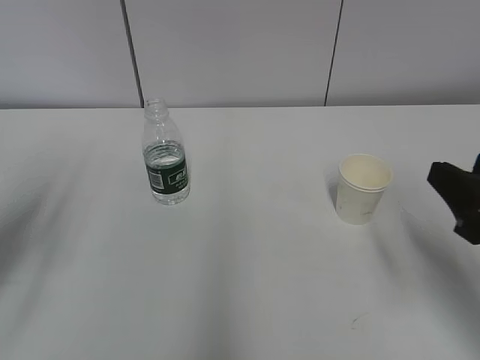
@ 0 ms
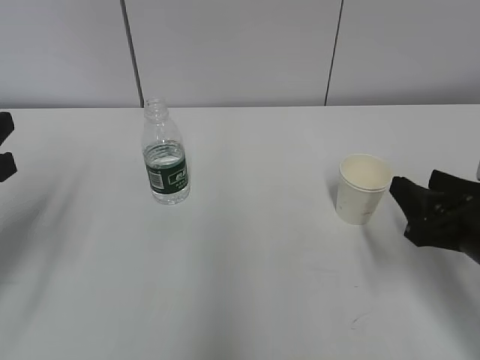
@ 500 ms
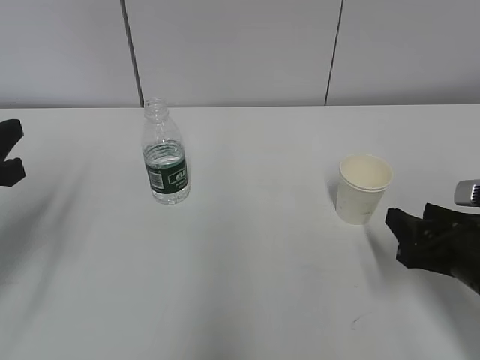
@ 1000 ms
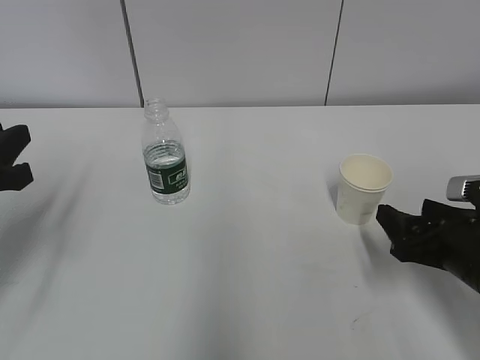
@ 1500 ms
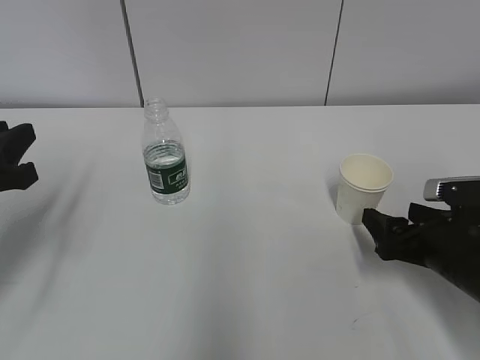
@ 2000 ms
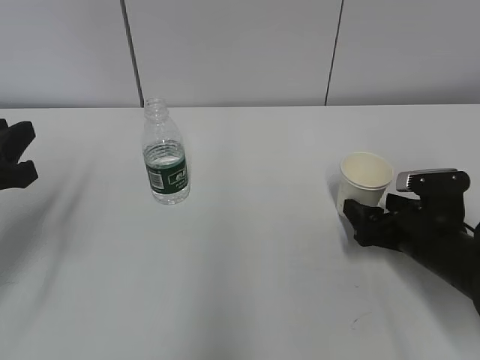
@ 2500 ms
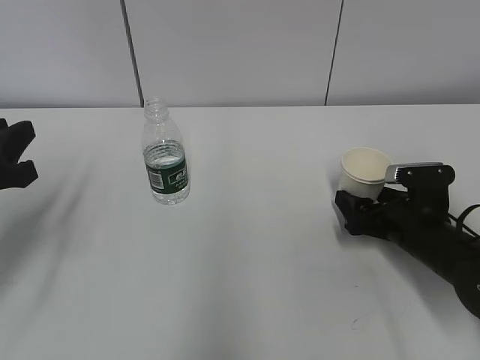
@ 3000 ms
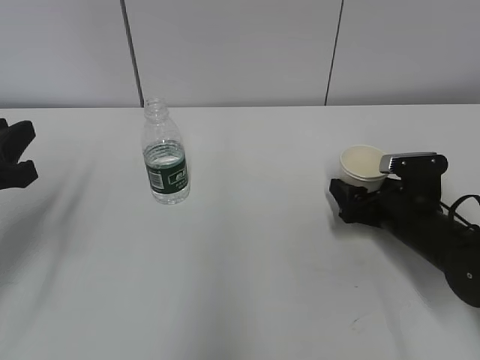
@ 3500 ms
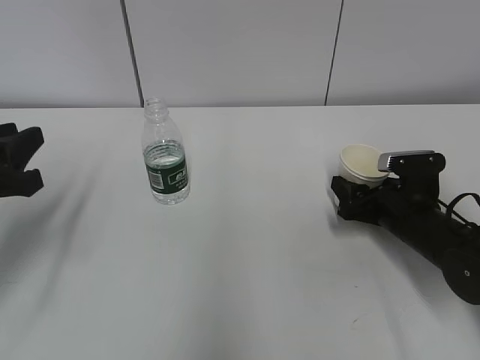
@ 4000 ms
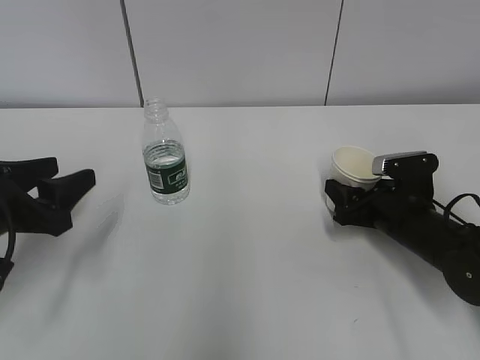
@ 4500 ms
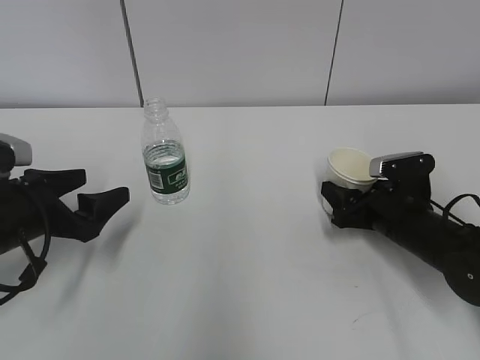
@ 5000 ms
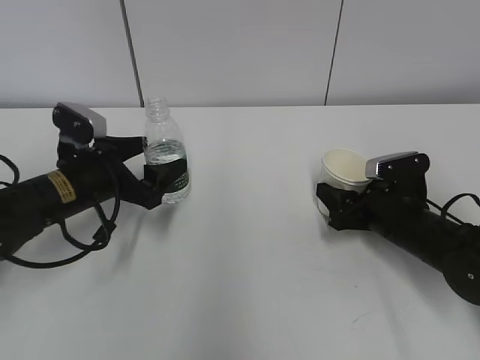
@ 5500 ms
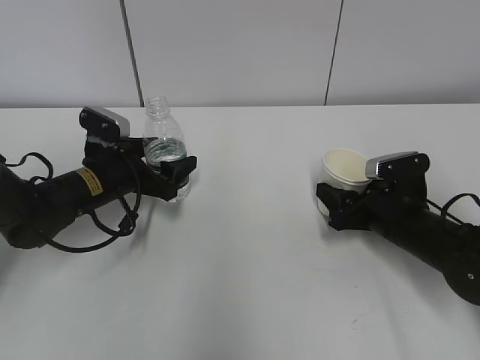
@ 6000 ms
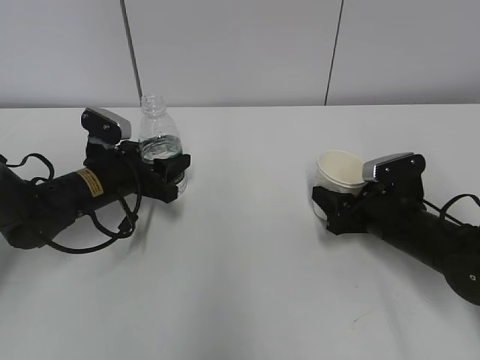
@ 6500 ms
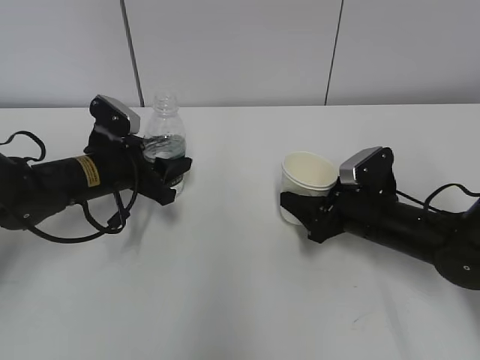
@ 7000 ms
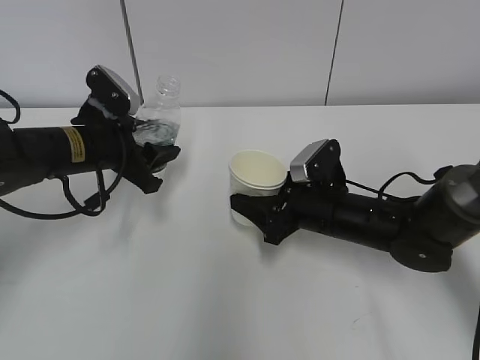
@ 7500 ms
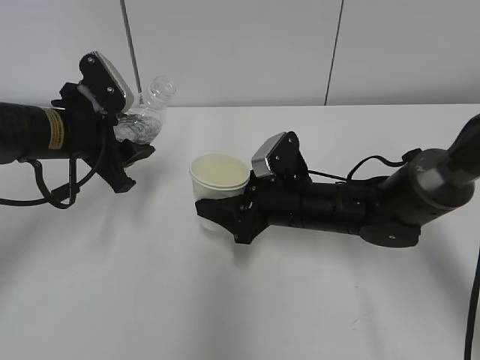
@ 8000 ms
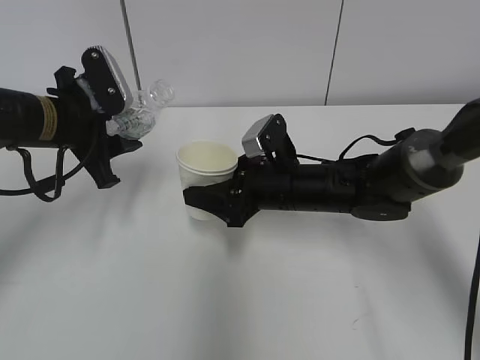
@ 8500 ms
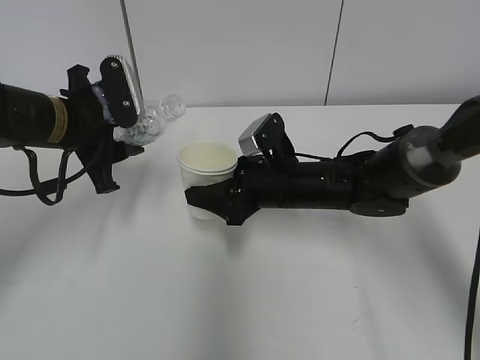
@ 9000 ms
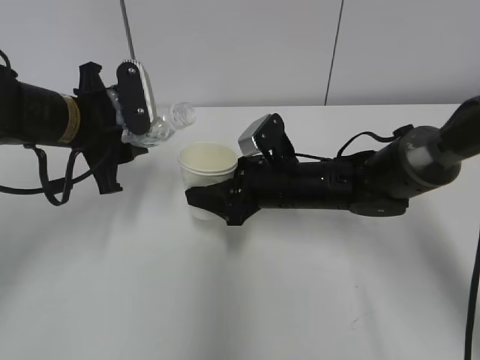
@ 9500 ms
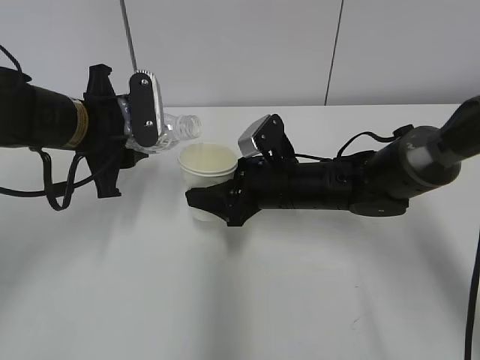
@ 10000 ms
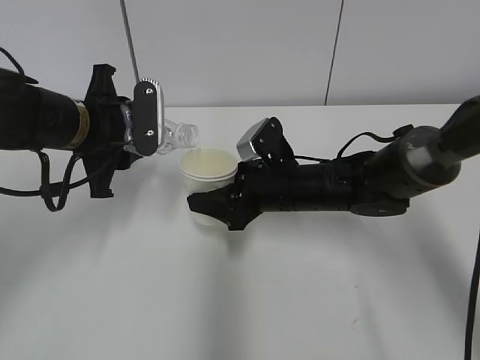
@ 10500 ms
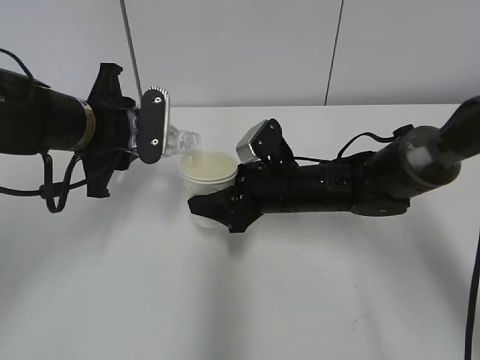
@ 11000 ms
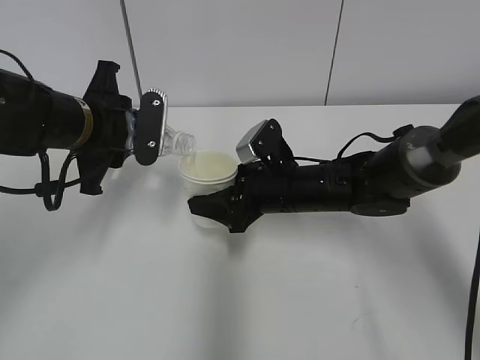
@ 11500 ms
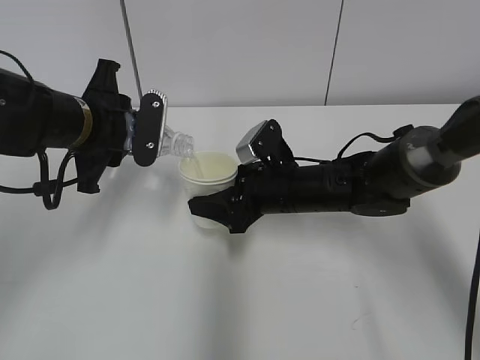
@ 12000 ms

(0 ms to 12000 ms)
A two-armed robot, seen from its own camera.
Step, 0 ms - 4500 ms: Grab the paper cup with the right hand.
Step, 5500 ms - 8500 ms: Lift the paper cup with the right hand.
0 ms - 2000 ms: The left gripper moves some 5 cm; the right gripper travels downward and forward by some 15 cm, and opens.
2000 ms - 4000 ms: The right gripper moves forward, roughly 10 cm, and closes its fingers.
4000 ms - 6000 ms: The left gripper heads forward, downward and to the right, covering approximately 20 cm, and opens up.
6000 ms - 8000 ms: The right gripper goes some 15 cm to the left. The left gripper heads upward, covering approximately 10 cm, and closes up.
10000 ms - 12000 ms: There are only small adjustments of the grippers.

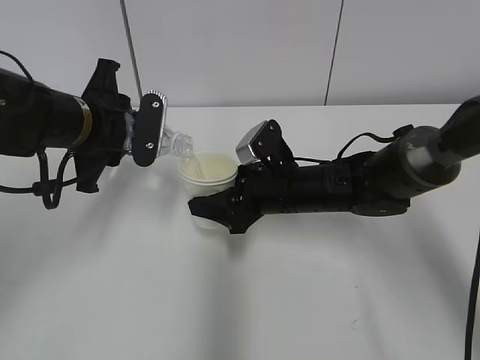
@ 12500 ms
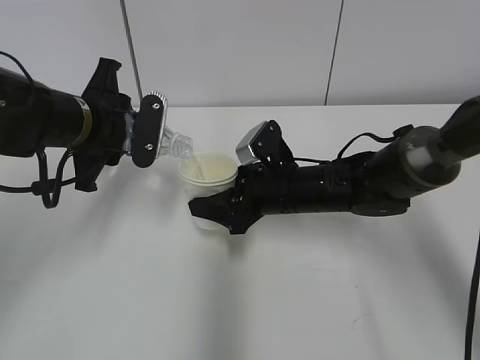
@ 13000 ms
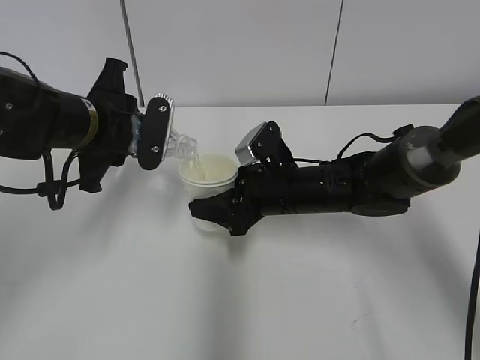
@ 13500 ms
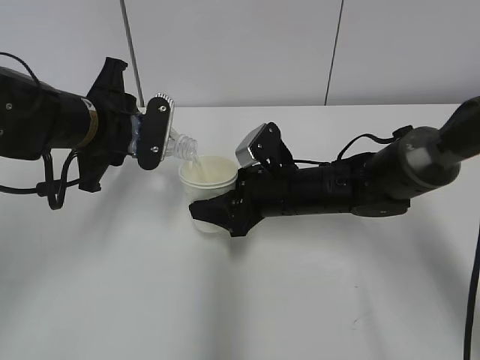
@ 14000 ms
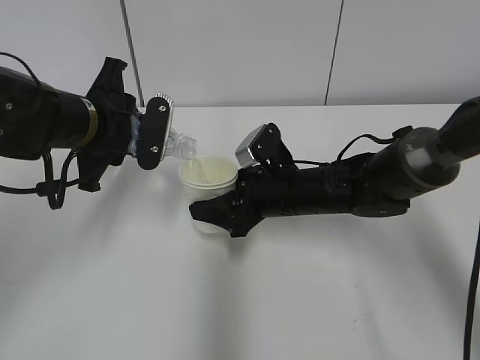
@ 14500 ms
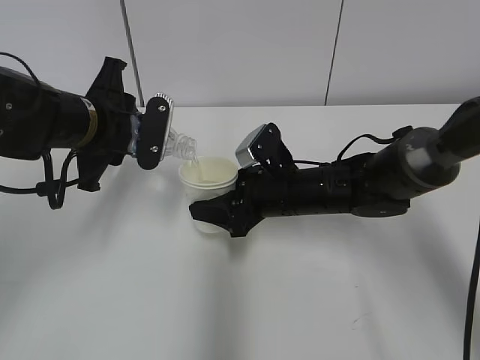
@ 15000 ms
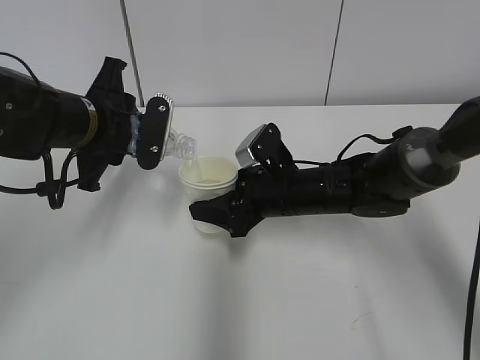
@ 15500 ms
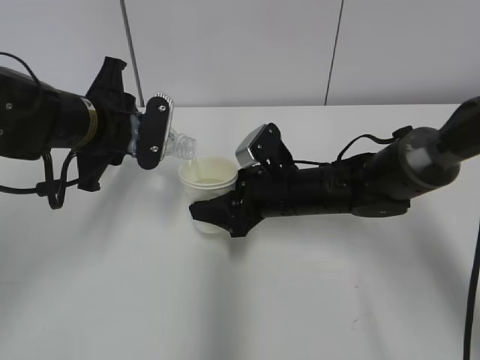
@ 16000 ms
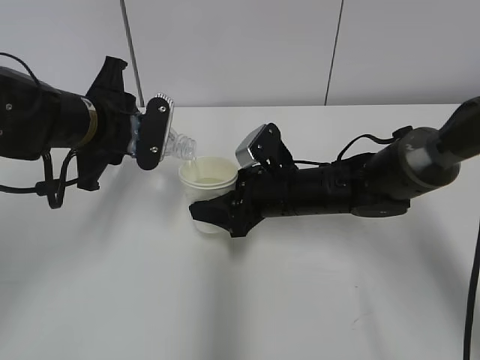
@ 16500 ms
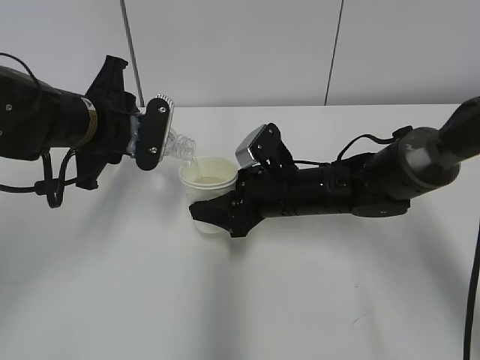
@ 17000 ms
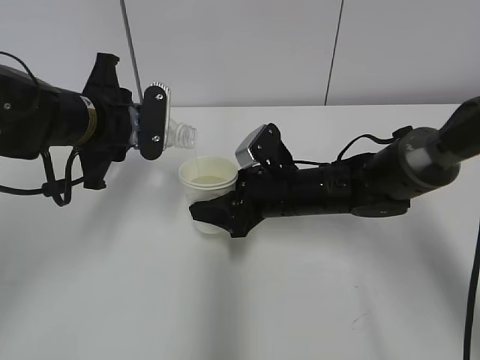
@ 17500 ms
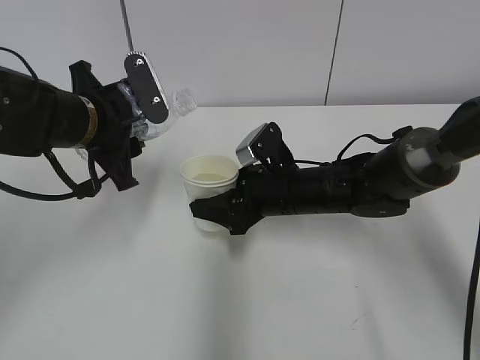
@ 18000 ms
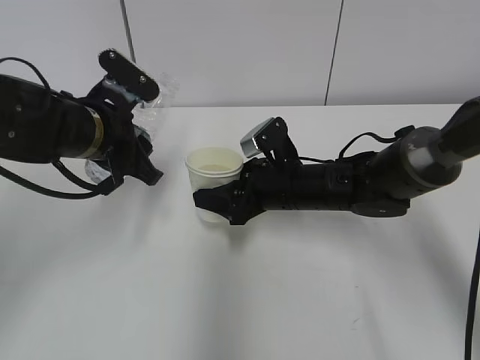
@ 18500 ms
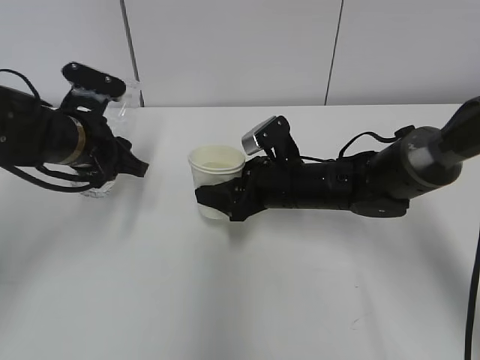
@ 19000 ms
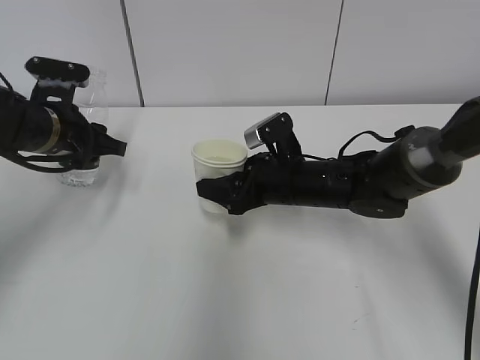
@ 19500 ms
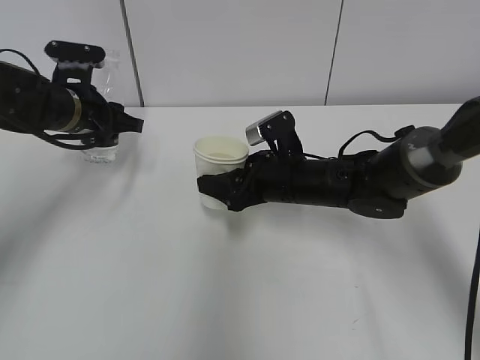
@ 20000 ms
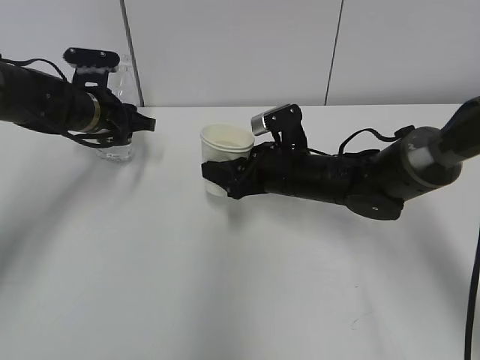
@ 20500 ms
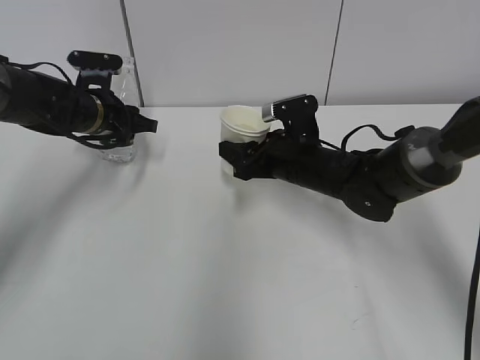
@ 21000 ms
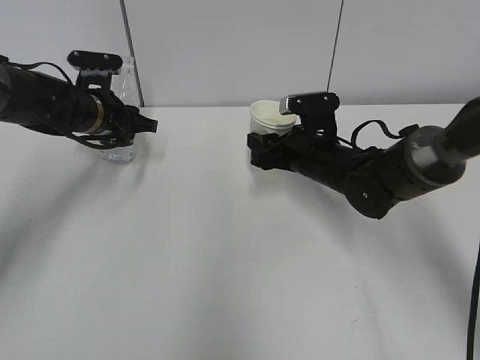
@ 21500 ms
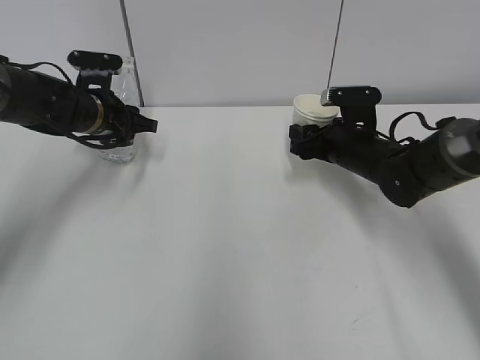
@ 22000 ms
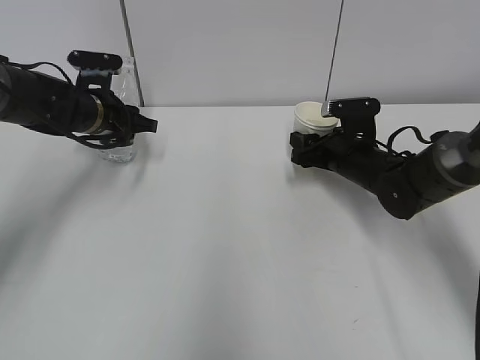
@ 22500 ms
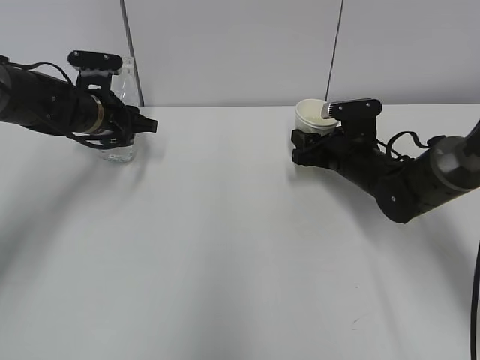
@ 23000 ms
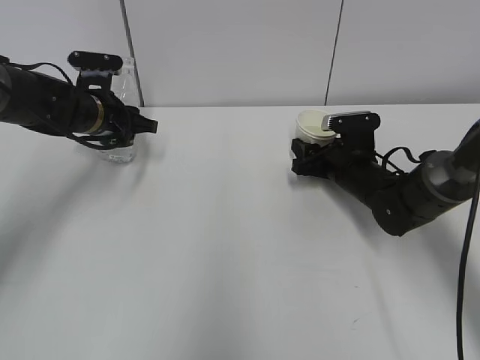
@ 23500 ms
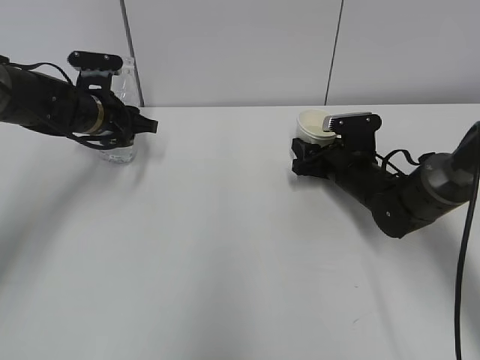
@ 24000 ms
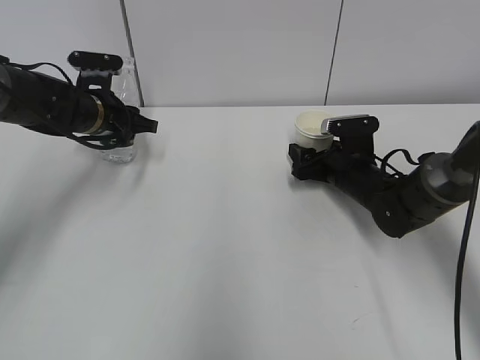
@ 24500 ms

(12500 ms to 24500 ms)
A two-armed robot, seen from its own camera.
12500 ms - 16500 ms: Both grippers stay put.
18500 ms - 20500 ms: The left gripper travels forward by some 10 cm.
20500 ms - 22500 ms: The right gripper travels to the right by about 10 cm.
22500 ms - 24500 ms: The right gripper opens.

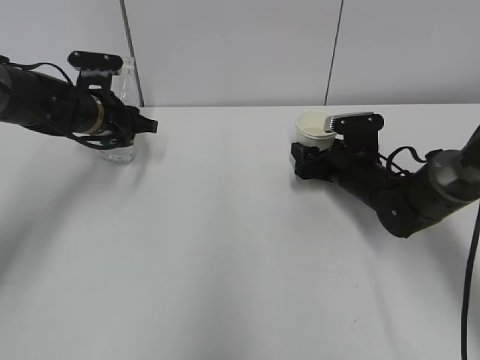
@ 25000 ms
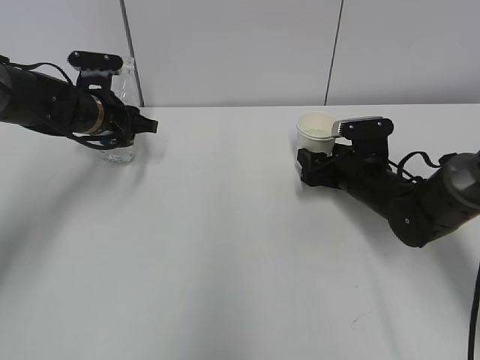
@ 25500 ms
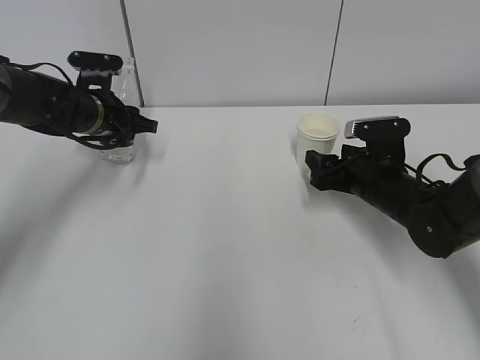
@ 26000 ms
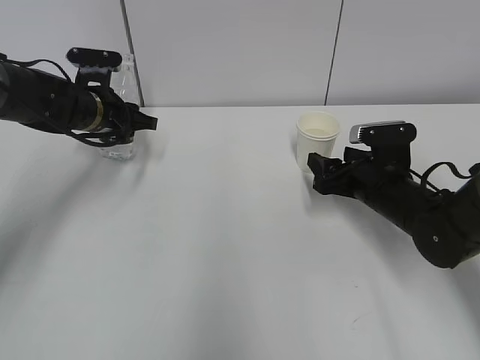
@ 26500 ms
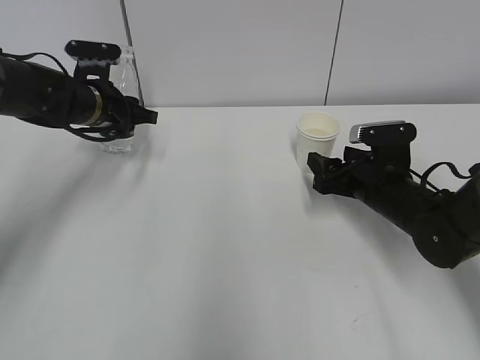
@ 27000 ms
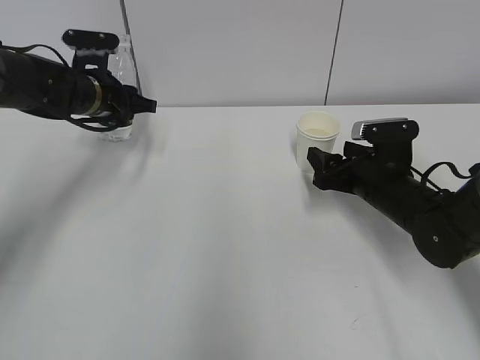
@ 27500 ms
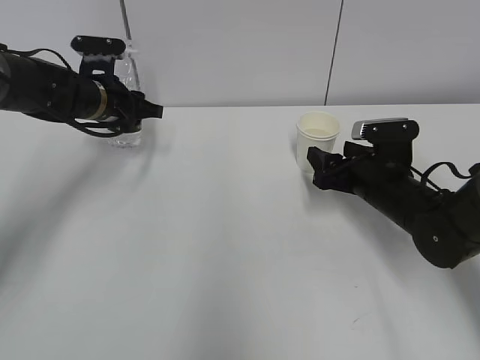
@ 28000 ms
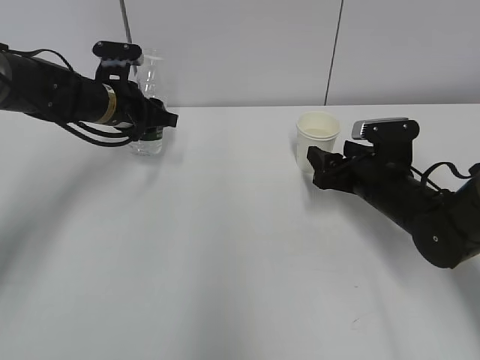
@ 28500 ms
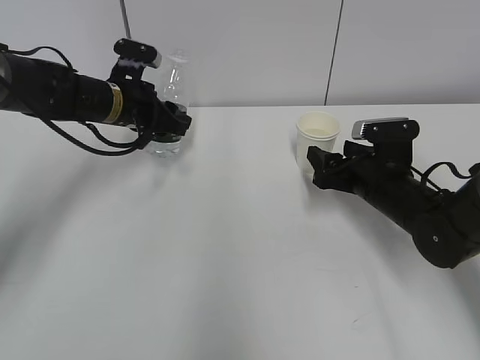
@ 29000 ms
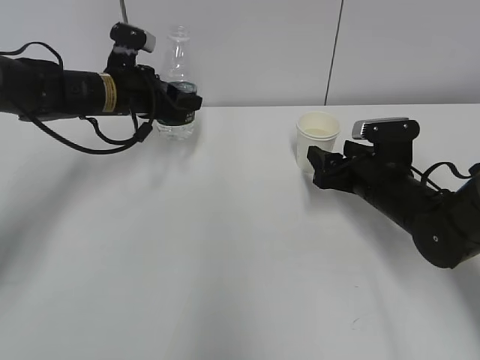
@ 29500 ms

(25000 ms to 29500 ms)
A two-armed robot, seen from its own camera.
25000 ms - 27000 ms: The right gripper is displaced backward by approximately 5 cm.
